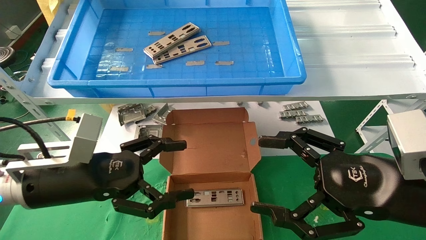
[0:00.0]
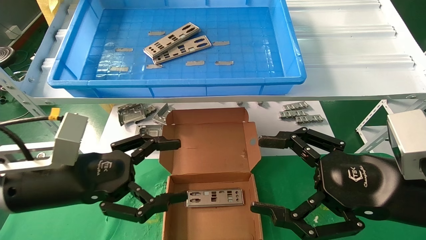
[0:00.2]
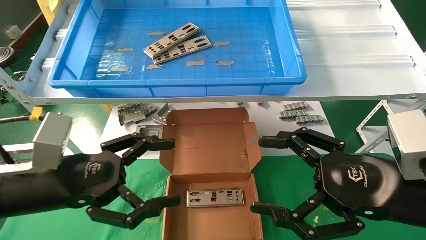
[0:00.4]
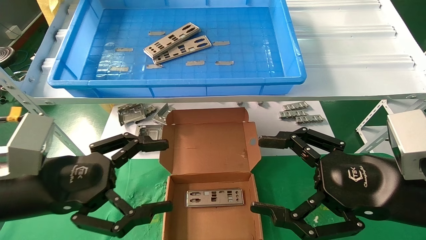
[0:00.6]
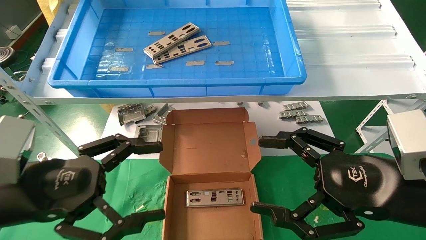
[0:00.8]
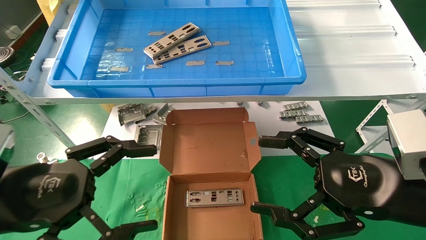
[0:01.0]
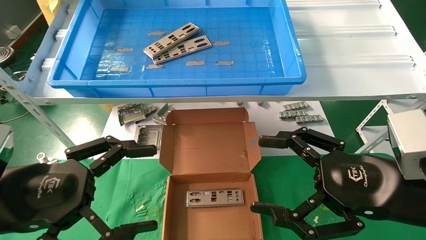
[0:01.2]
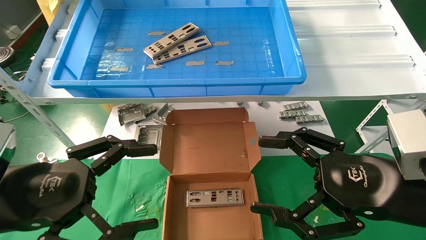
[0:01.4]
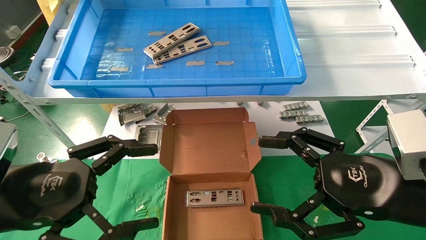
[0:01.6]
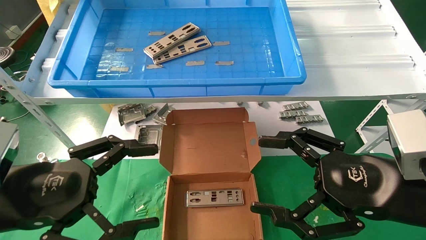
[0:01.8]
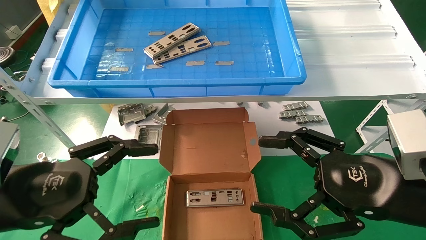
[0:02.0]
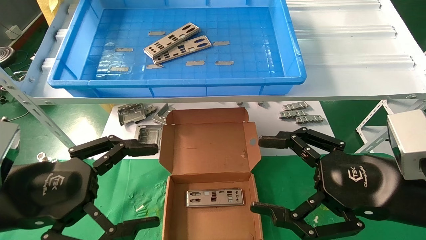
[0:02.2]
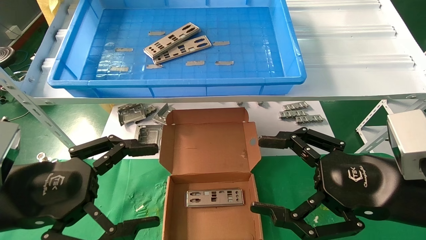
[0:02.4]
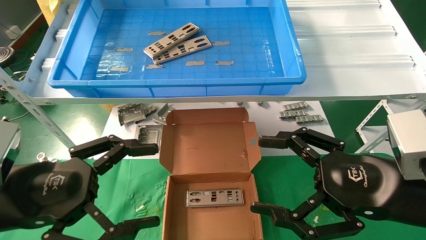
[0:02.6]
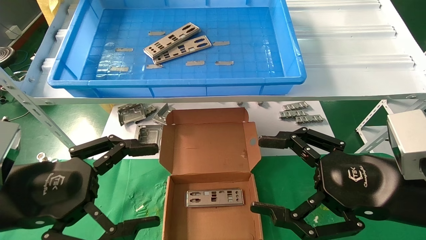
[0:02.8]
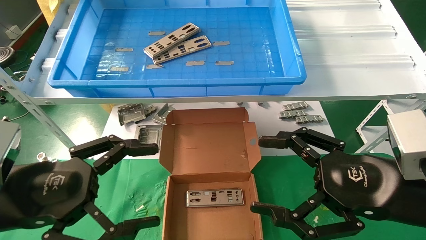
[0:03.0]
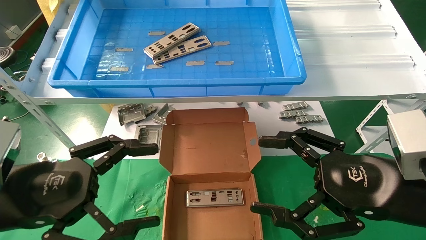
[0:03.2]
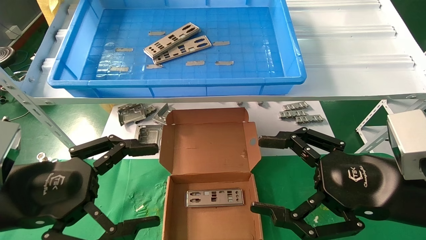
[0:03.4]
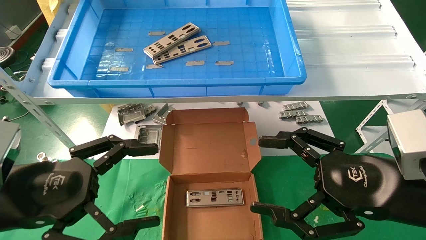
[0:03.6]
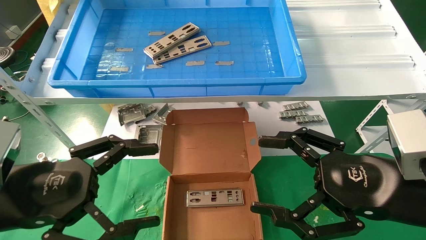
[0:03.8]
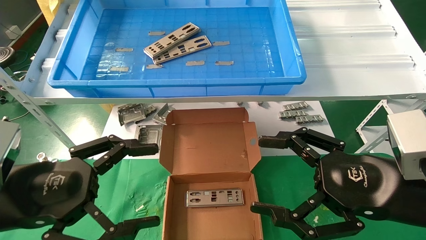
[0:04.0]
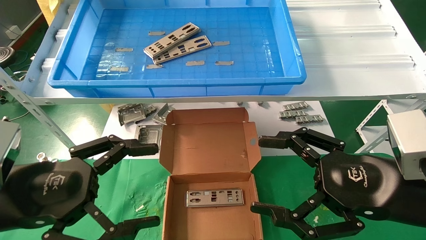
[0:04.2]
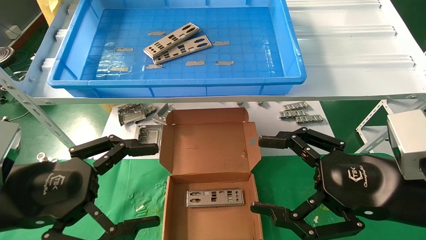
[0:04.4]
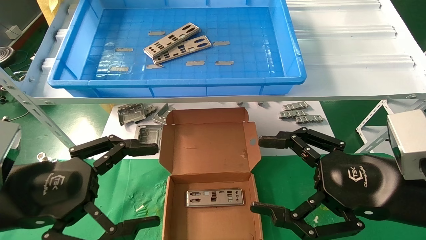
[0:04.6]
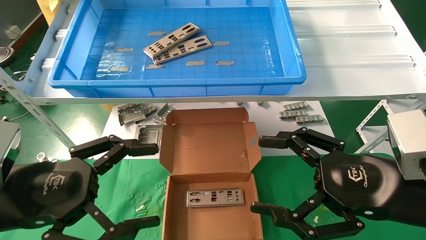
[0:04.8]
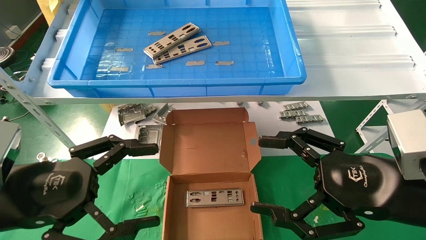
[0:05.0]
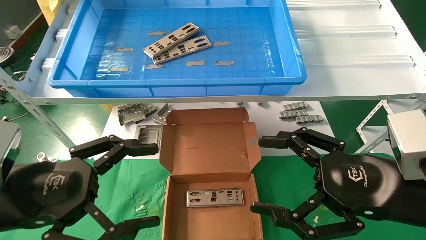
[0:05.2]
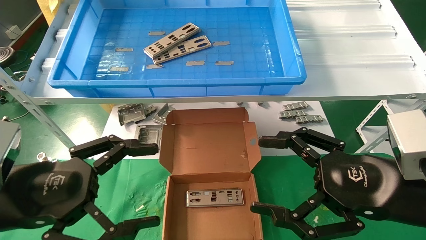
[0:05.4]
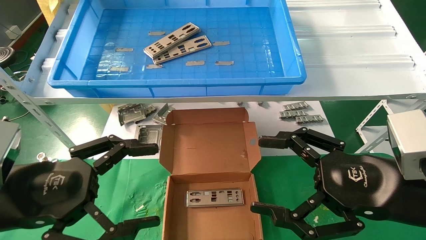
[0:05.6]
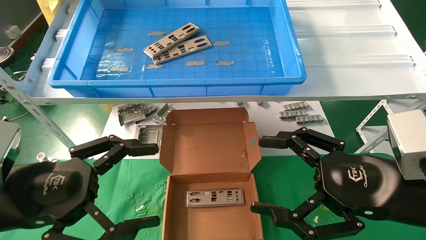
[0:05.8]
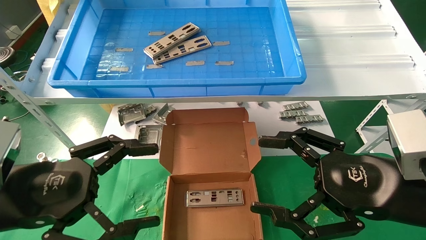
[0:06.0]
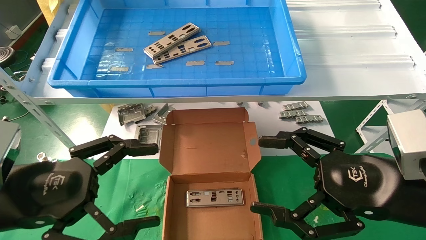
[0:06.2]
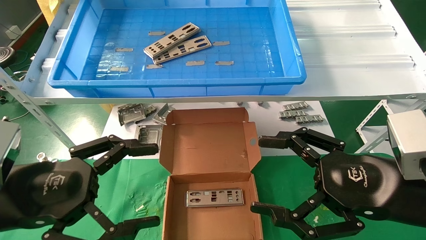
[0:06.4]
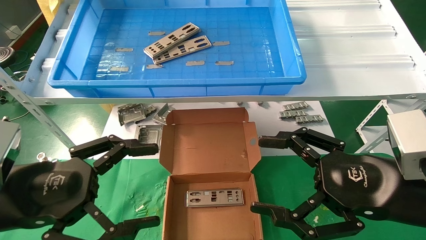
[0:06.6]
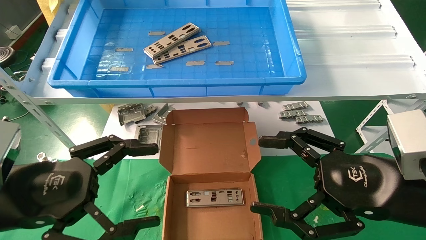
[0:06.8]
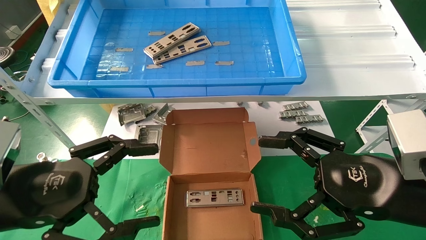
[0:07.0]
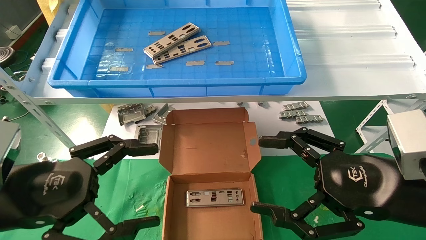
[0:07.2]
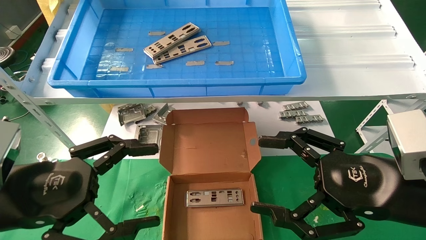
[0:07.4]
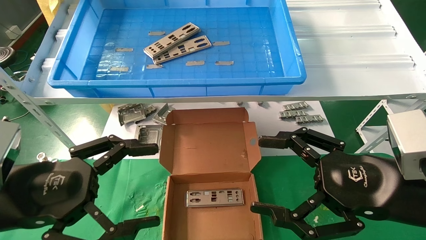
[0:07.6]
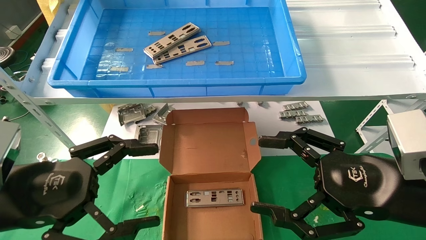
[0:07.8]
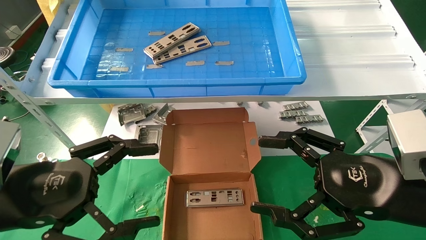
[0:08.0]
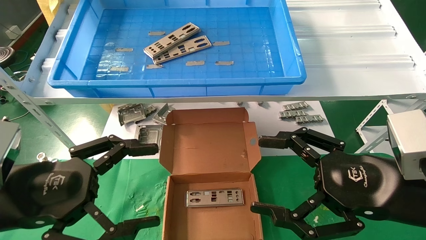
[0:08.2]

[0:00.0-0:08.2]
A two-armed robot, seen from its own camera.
Task of the whole recording: pick up the parts on the tray and put them in the cardboard box.
0:00.0 to 0:01.6: The left gripper shifts about 10 cm backward.
0:01.6 to 0:08.2: Both grippers stay put.

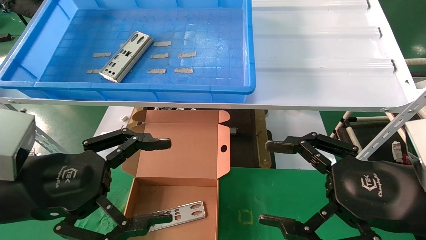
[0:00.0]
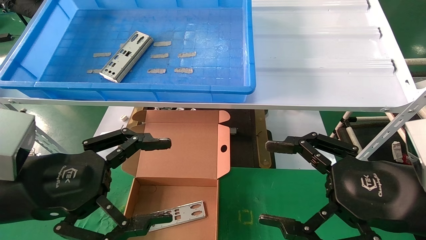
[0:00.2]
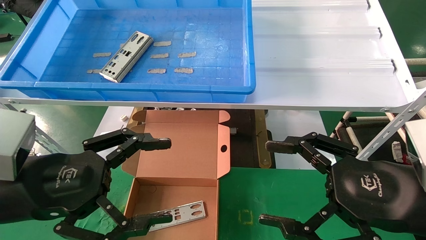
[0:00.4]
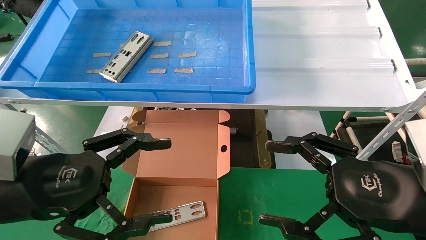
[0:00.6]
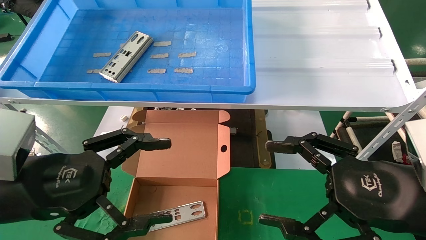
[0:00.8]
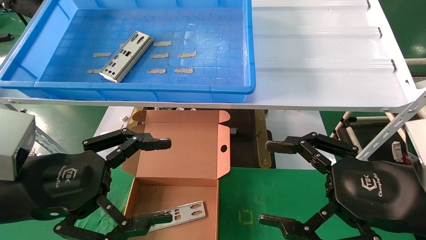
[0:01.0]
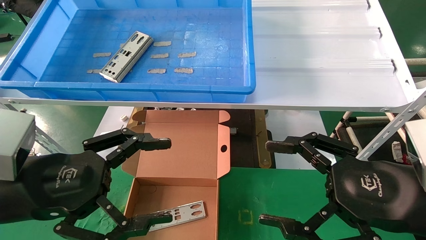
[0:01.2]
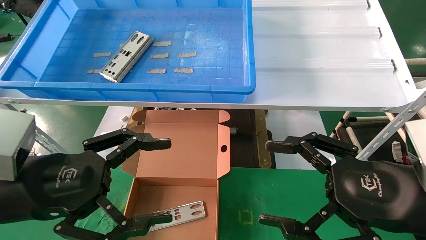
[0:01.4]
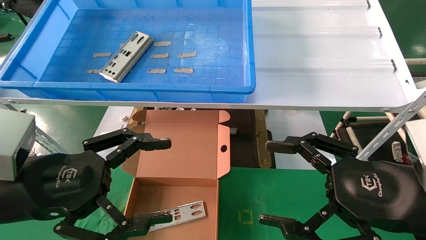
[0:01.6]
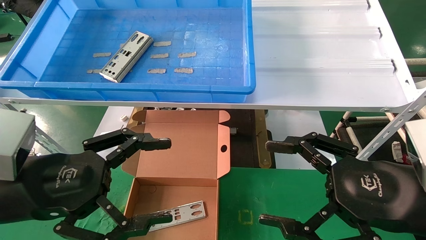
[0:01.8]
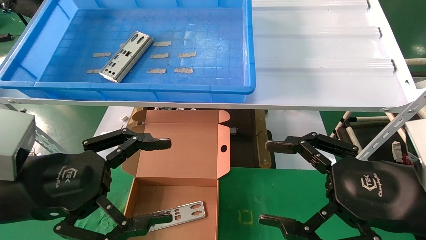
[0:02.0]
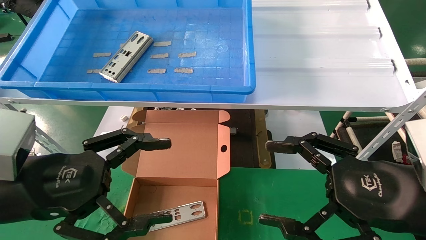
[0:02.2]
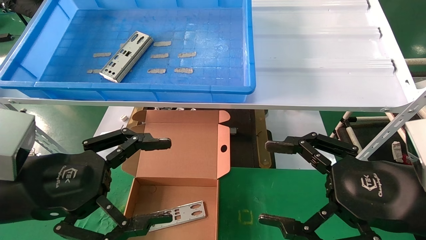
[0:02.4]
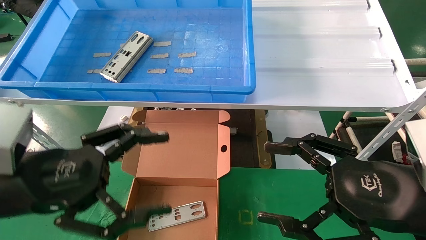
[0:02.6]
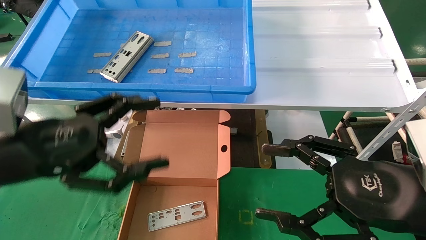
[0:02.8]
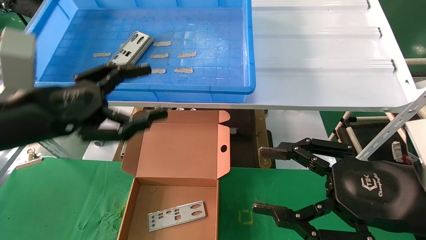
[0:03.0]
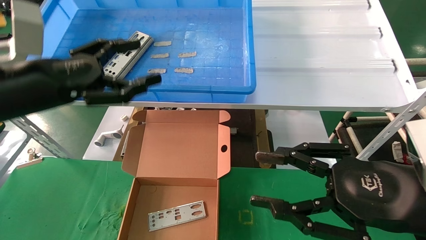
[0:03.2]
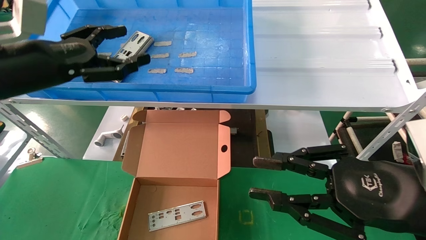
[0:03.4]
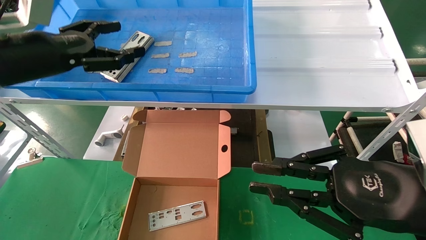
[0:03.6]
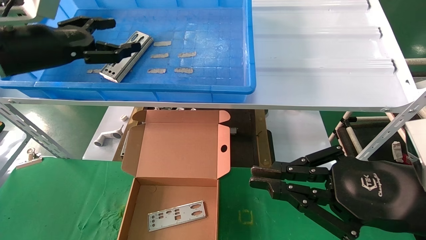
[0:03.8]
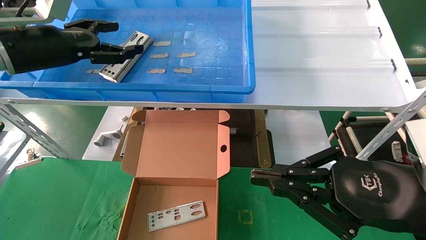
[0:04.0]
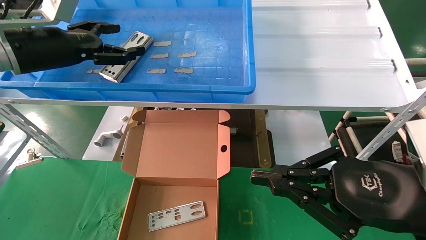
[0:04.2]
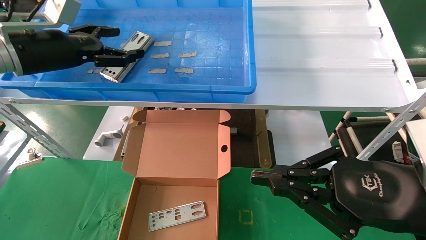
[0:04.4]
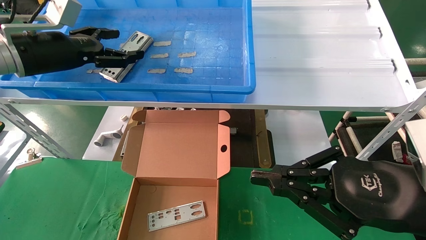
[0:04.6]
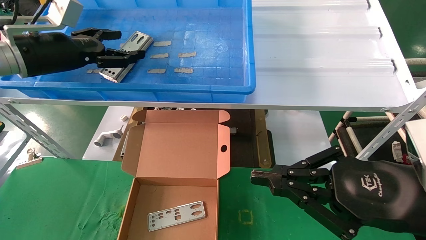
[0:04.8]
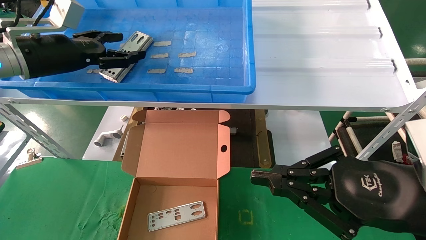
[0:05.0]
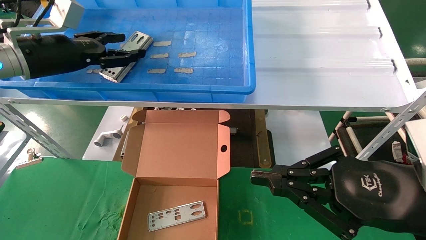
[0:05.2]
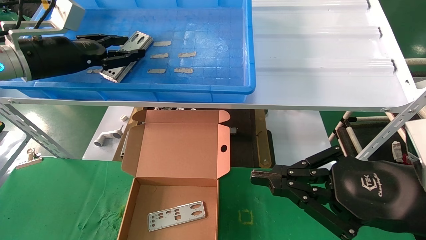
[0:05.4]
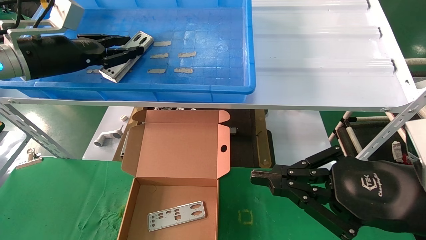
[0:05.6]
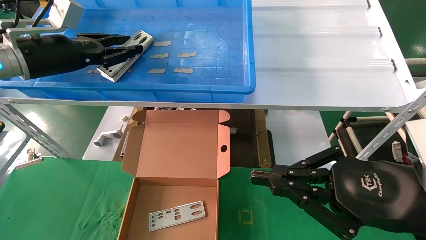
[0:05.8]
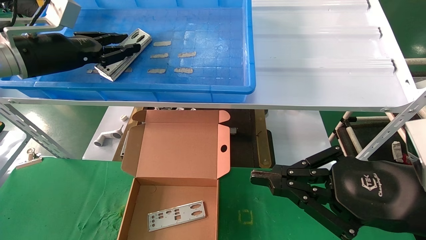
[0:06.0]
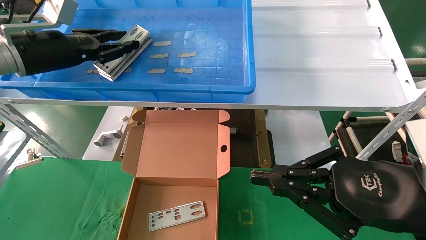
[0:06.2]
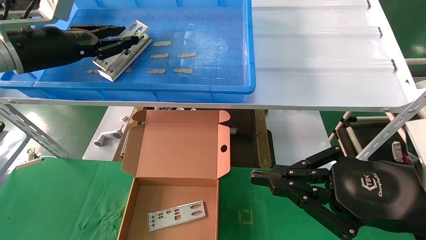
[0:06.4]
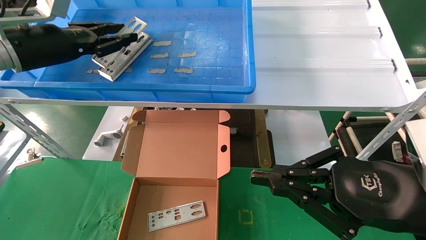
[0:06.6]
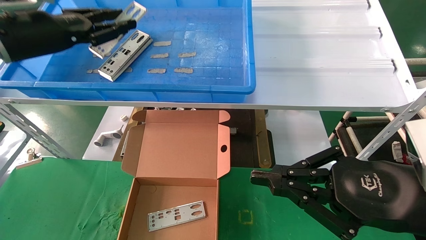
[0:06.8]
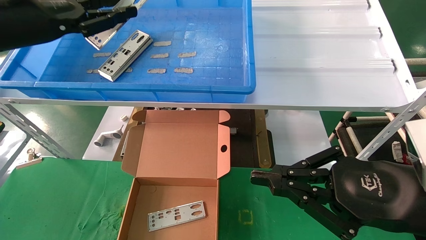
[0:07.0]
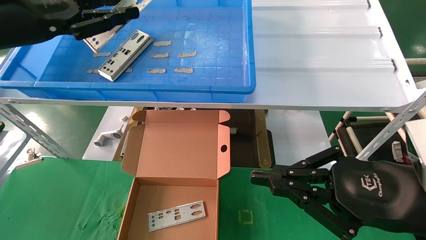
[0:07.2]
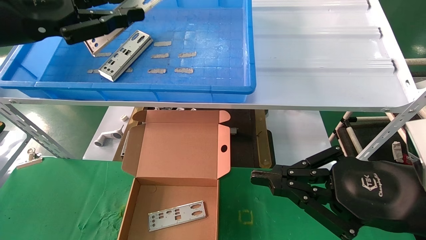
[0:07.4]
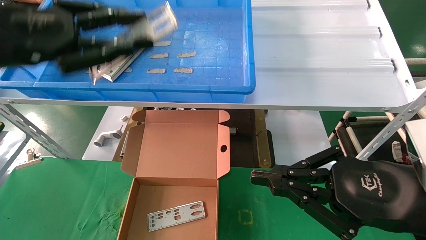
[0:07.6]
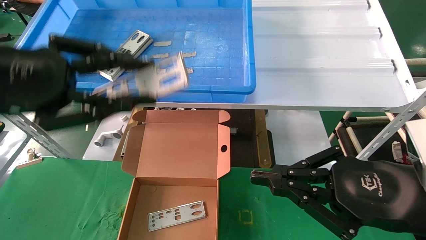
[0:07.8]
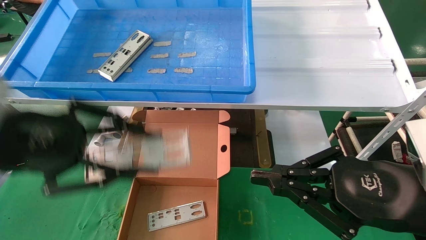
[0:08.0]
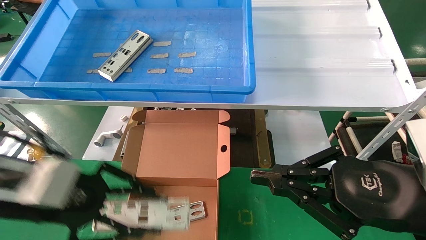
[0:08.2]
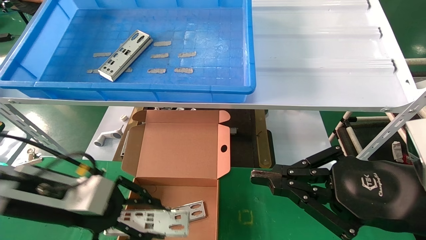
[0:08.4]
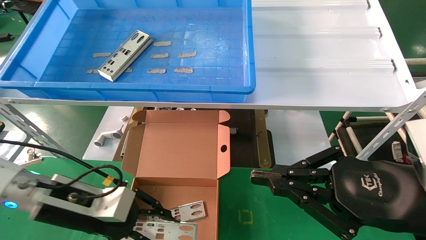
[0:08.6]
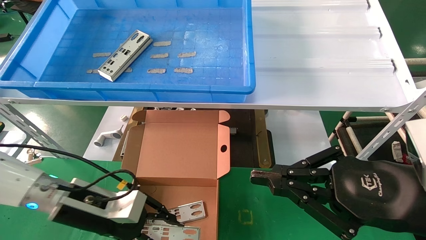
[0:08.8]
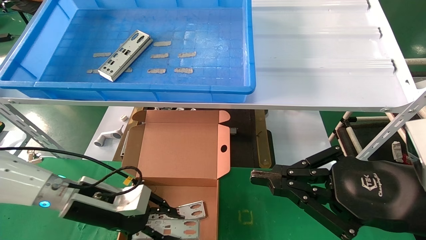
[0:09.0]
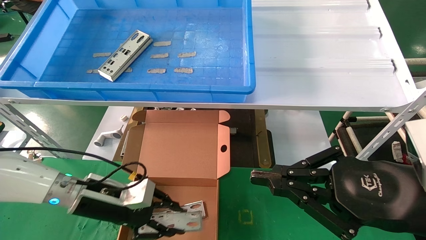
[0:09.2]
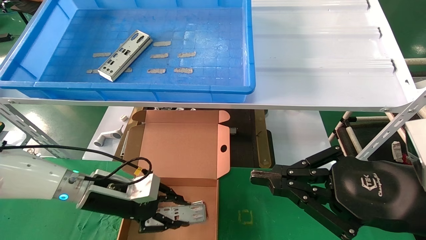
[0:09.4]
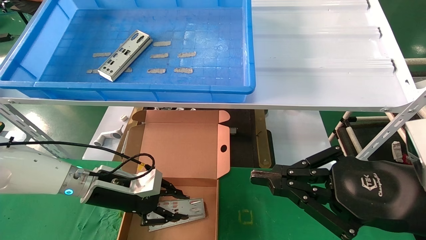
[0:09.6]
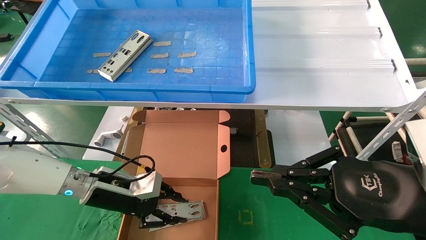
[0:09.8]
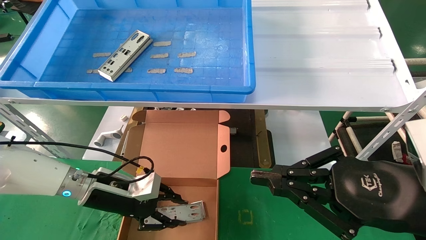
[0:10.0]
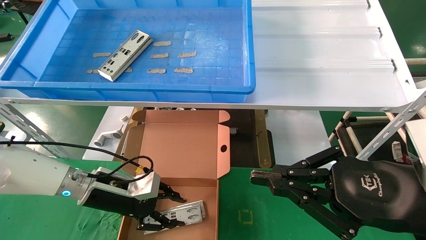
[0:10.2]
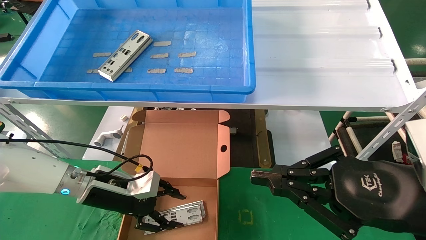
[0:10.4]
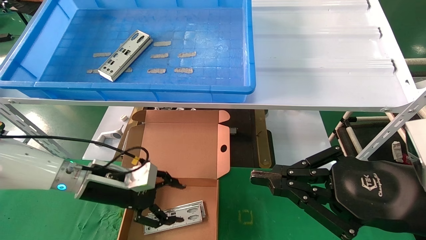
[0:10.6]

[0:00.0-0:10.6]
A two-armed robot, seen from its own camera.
Task of the whole recording: pick up the parts on the tray and put them in the cardboard box.
Step, 0:03.0 to 0:05.8: Pick up the IO bracket from the container box.
Step, 0:06.0 to 0:10.6: Place the IO bracket into the ingredient slot.
0:00.0 to 0:01.6: Both grippers stay put.
0:01.6 to 0:03.0: The left gripper moves upward and forward, roughly 10 cm.
0:03.0 to 0:04.6: The right gripper closes; the left gripper travels forward and upward by roughly 15 cm.
0:04.6 to 0:06.0: The left gripper closes.
0:06.0 to 0:07.6: The left gripper heads backward, covering some 15 cm.
0:07.6 to 0:09.0: The left gripper moves downward, roughly 25 cm.
0:09.0 to 0:10.6: The left gripper opens up.
